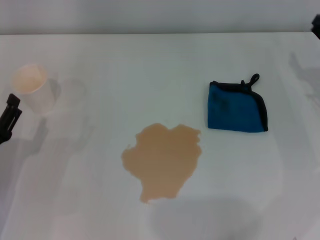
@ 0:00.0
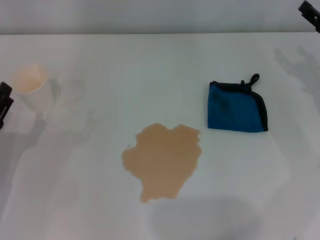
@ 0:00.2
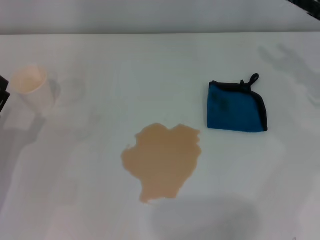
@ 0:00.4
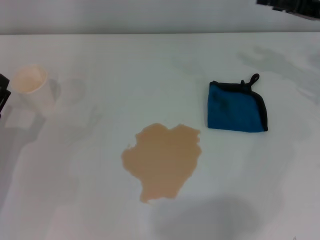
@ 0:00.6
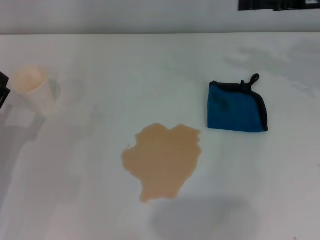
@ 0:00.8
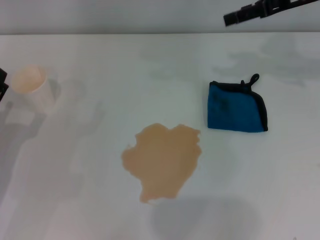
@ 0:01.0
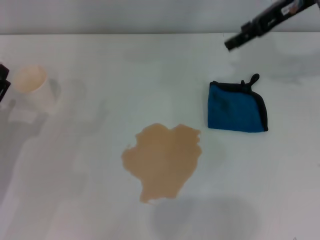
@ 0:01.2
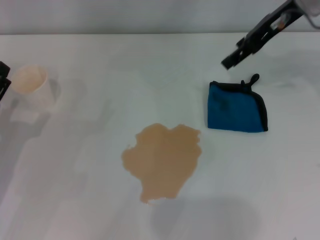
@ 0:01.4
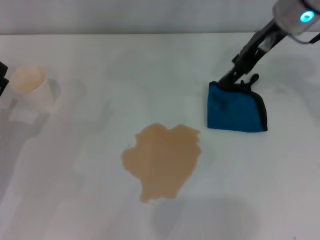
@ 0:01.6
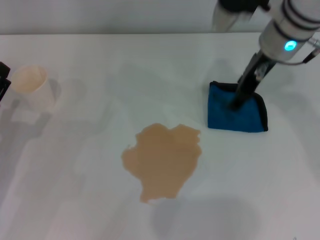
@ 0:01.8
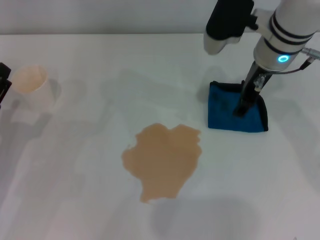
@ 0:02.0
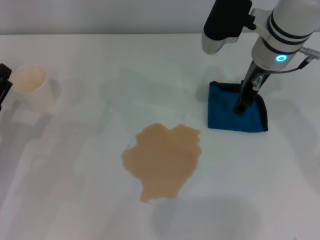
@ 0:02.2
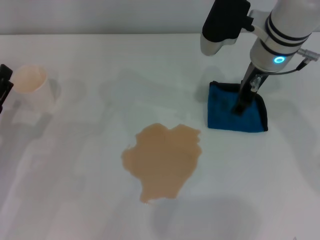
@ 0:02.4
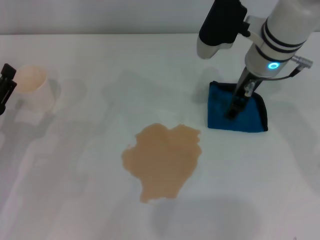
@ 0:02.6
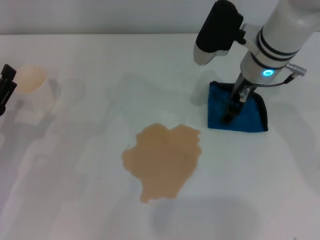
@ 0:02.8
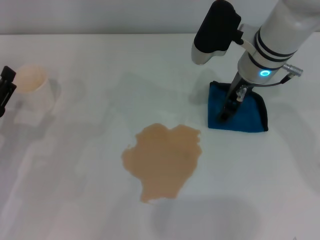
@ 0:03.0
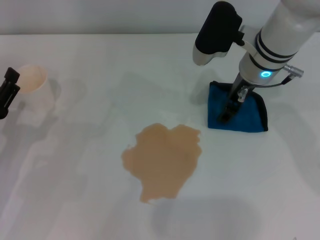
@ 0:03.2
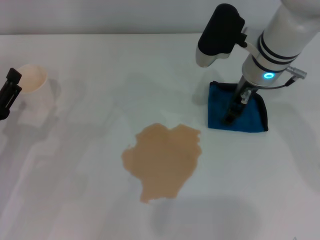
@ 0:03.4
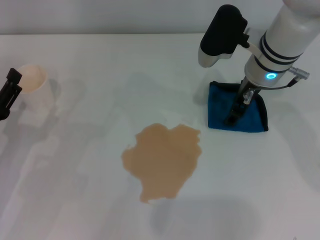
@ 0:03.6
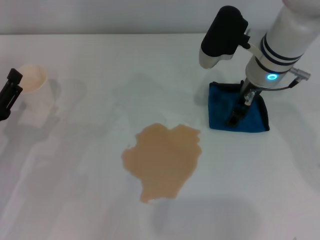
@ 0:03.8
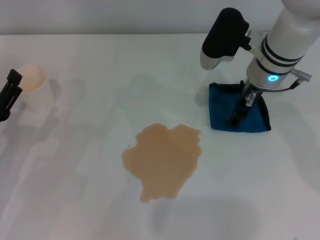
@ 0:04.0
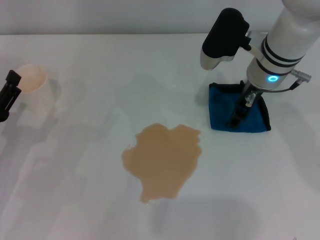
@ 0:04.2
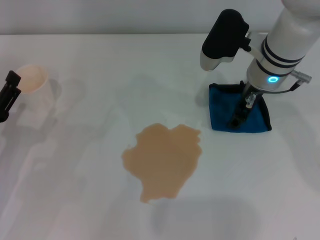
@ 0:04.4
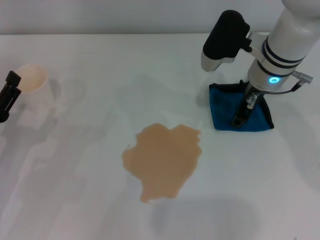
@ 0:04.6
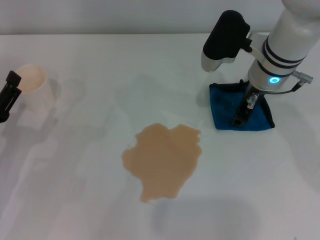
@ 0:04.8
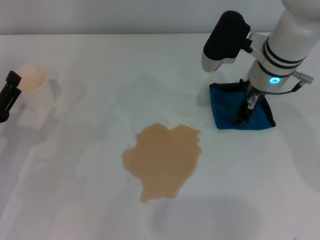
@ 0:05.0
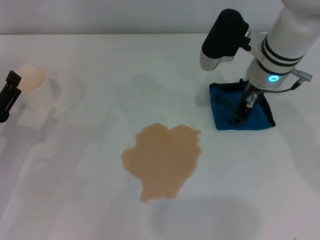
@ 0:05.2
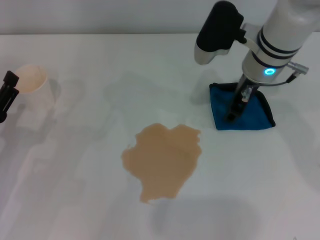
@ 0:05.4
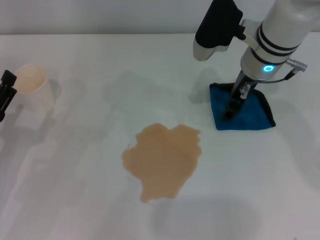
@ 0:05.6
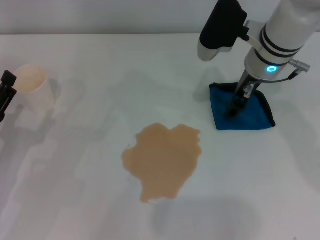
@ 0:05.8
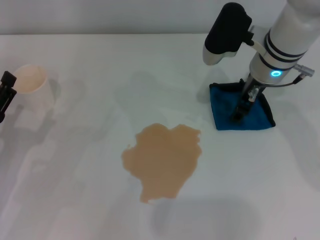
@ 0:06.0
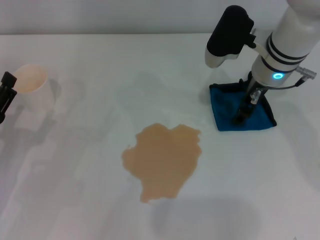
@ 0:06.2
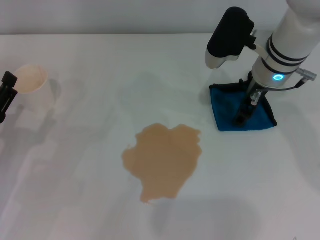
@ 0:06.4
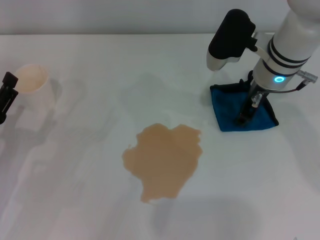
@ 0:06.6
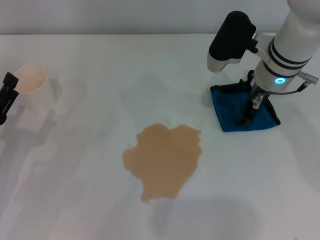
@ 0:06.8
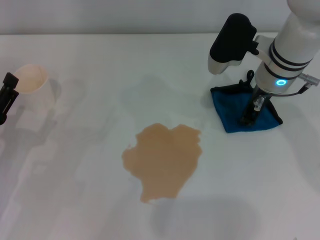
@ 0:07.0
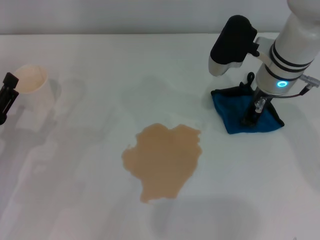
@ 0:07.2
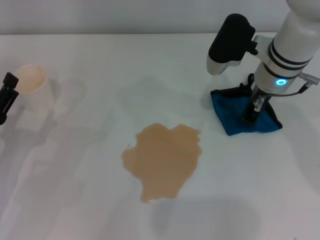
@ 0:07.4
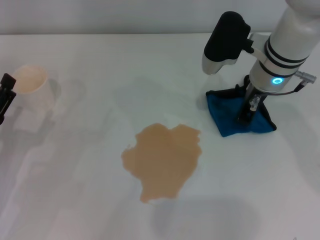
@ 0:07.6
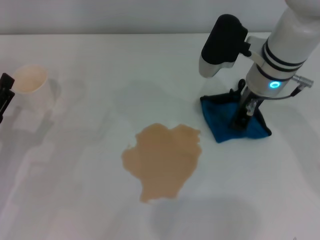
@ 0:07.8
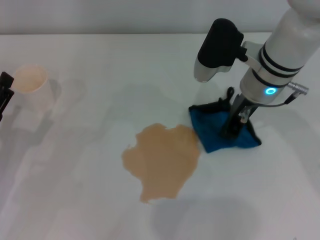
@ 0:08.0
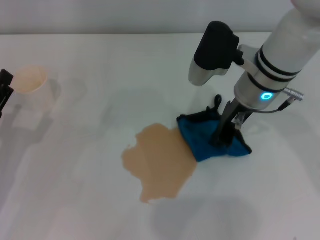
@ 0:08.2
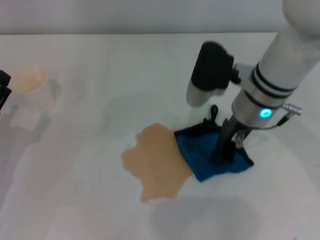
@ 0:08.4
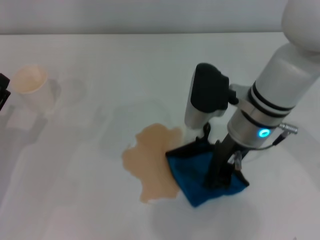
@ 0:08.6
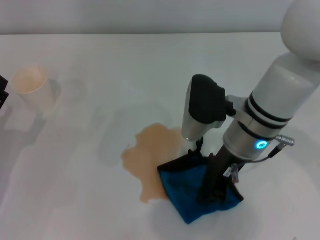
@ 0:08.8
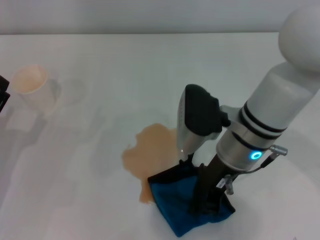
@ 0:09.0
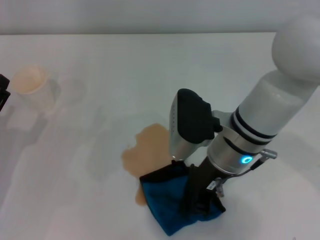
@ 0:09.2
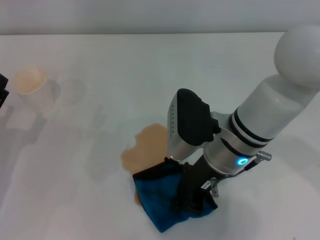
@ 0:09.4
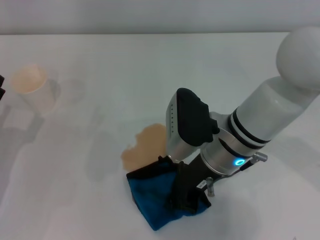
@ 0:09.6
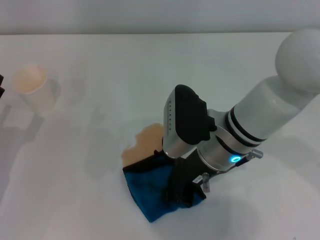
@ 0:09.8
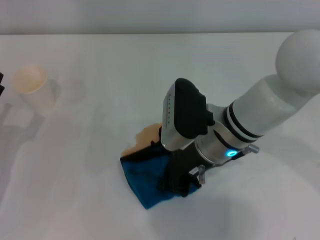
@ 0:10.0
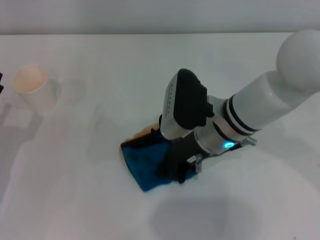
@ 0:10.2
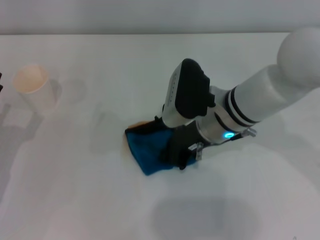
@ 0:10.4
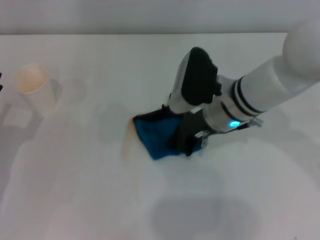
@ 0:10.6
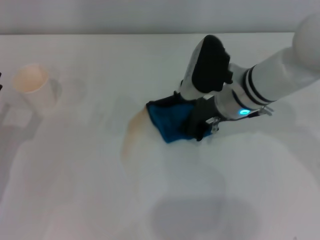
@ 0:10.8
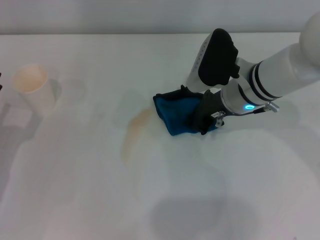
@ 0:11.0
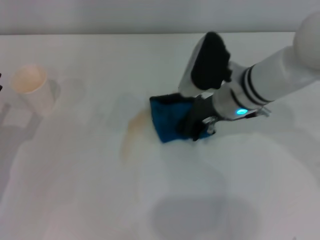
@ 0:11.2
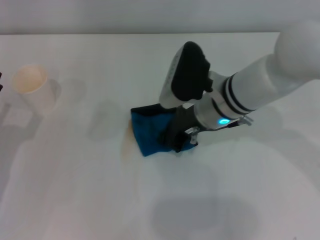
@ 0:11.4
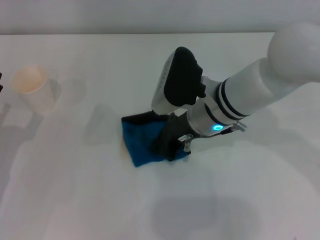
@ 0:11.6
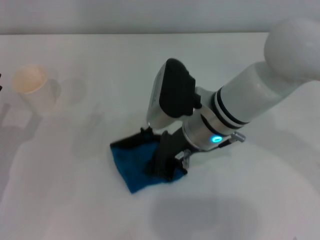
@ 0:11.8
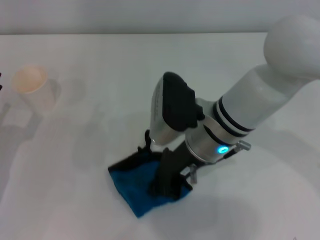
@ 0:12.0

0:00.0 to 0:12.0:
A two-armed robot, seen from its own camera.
Step, 0:00.0 to 0:04.8: Grasp the rag with the right gripper.
0:00.0 to 0:01.6: The right gripper goes some 20 cm upward, to the left and forward.
0:01.6 to 0:03.0: The right gripper travels downward by some 10 cm.
0:03.0 to 0:04.4: The grippers stay close to where they were, moving slightly.
0:04.4 to 0:06.0: The right gripper closes and opens again.
0:06.0 to 0:07.6: The right gripper closes its fingers.
0:07.6 to 0:09.0: The right gripper heads backward, covering roughly 10 cm.
0:10.4 to 0:12.0: The grippers stay close to where they were, moving slightly.

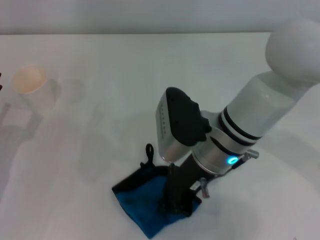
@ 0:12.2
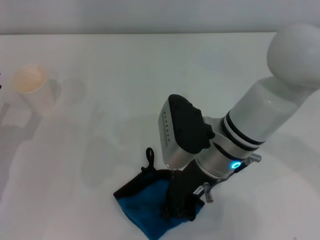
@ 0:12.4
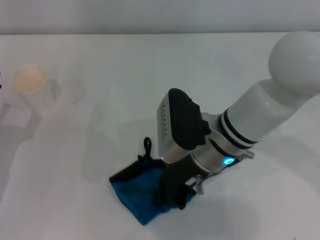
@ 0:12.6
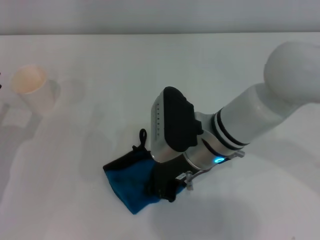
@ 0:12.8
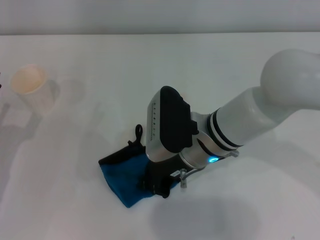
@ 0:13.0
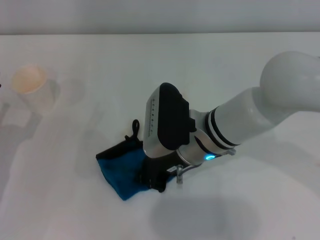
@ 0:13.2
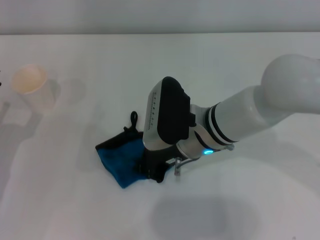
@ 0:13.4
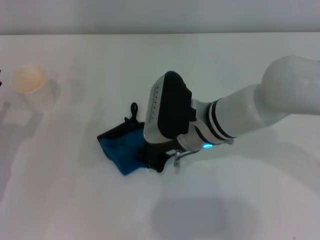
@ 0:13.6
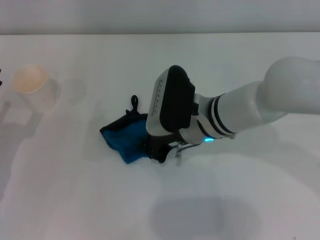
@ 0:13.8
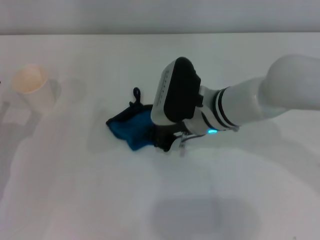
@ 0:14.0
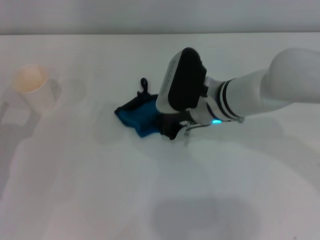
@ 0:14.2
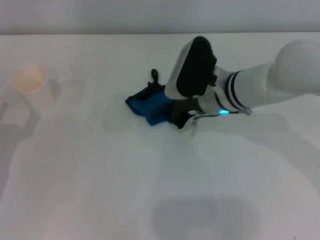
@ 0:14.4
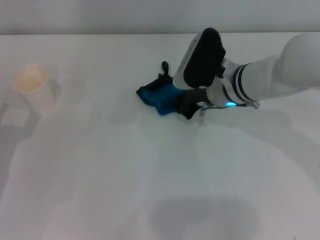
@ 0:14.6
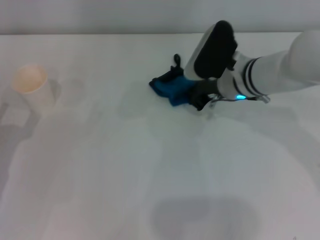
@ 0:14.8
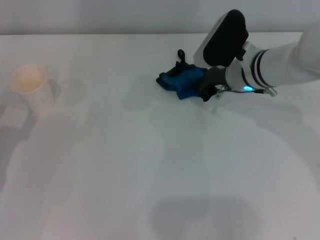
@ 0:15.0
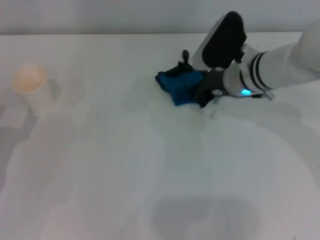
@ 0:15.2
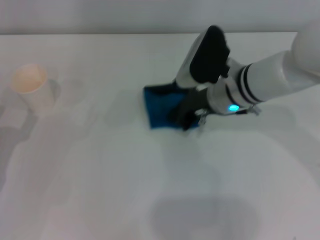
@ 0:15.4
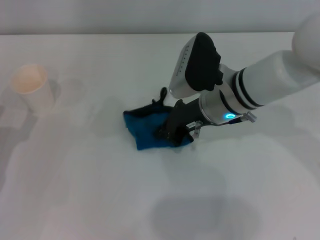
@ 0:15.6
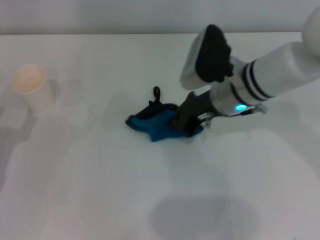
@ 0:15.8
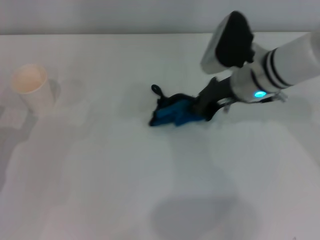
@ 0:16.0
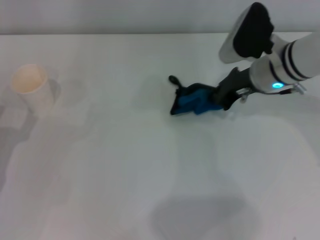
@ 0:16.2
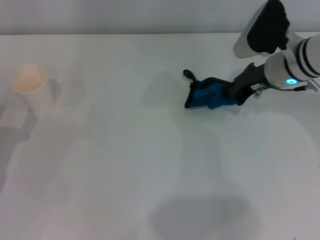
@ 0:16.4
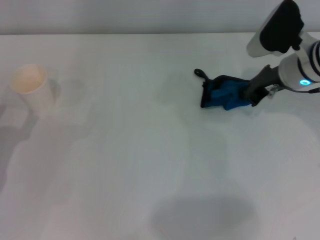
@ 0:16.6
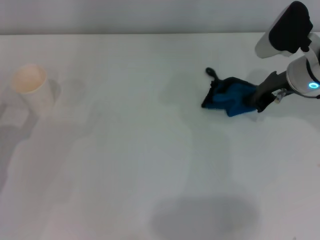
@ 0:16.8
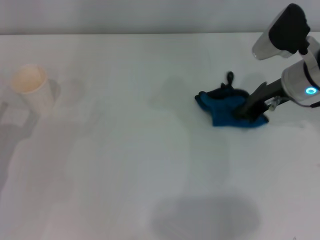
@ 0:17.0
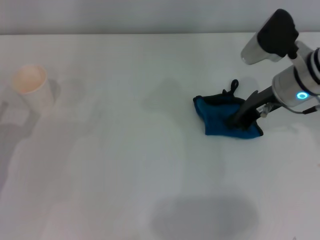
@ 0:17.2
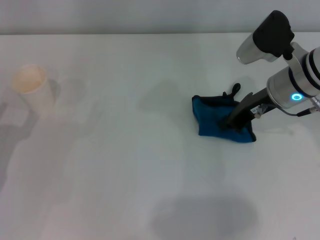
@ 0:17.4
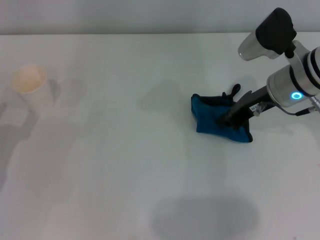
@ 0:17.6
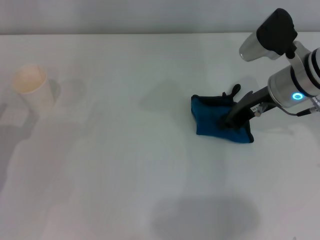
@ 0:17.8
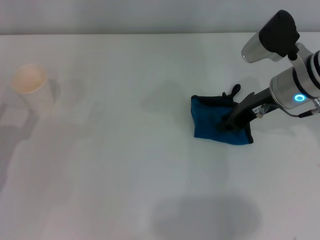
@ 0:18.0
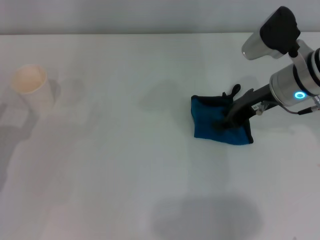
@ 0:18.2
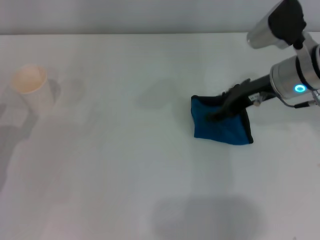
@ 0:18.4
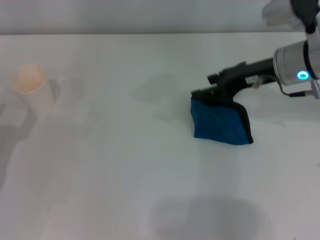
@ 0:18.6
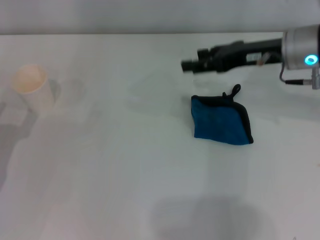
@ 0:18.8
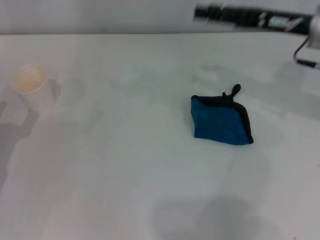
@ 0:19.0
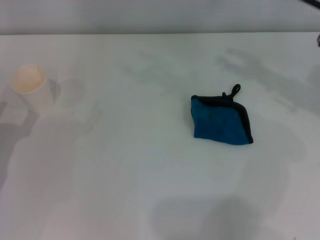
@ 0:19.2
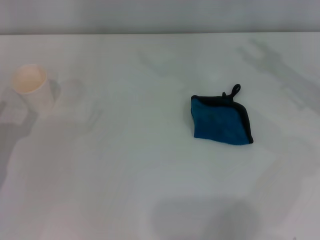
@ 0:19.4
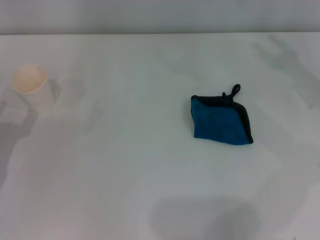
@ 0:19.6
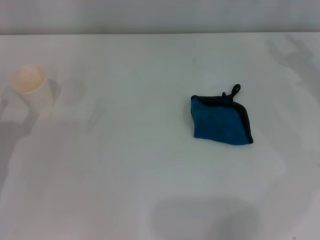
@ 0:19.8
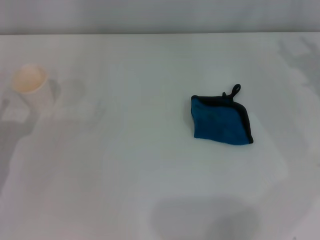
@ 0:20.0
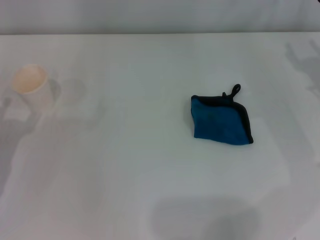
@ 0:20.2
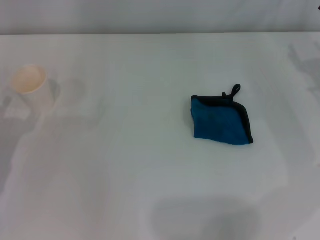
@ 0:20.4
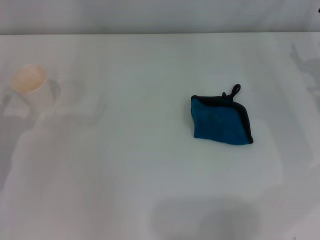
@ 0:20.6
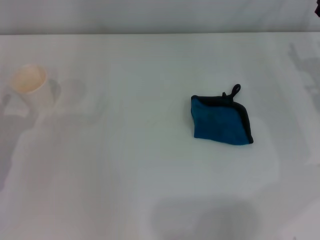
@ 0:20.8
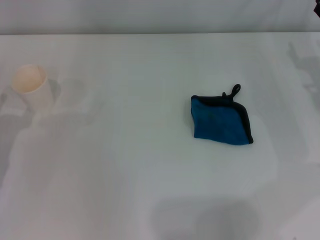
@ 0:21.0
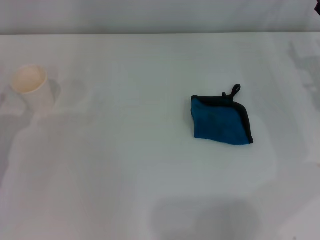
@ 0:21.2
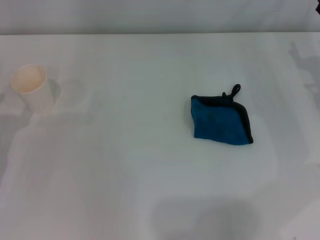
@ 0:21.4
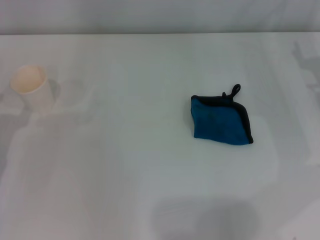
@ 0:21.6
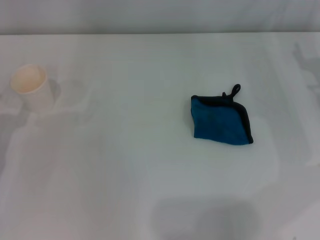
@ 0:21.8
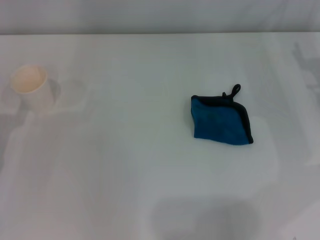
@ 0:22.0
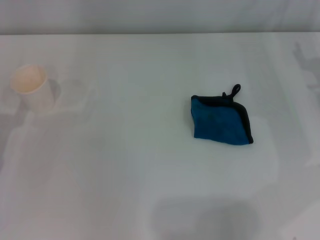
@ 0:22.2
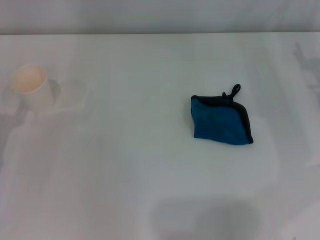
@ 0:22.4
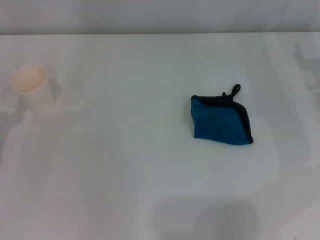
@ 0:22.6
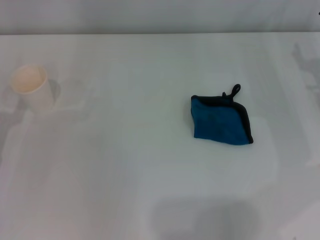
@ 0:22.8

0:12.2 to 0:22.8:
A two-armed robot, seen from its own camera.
Step, 0:12.2 to 0:17.4: Wipe the stains off the table with the right gripper.
Step, 0:17.6 to 0:18.2: Place the rag on the table with the right gripper.
0:13.8 to 0:15.2: The right gripper shifts approximately 10 cm forward and to the right.
0:15.2 to 0:16.8: The right gripper travels to the right by some 10 cm.
0:16.8 to 0:18.2: The right gripper opens.
0:18.2 to 0:19.8: The right gripper travels to the right by about 10 cm, and opens its fingers.
0:21.2 to 0:22.8: Both grippers stay about where they are.
